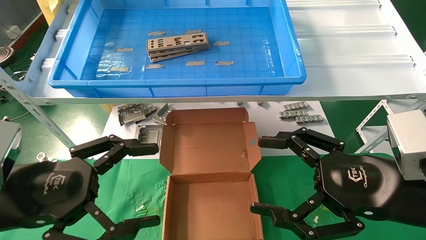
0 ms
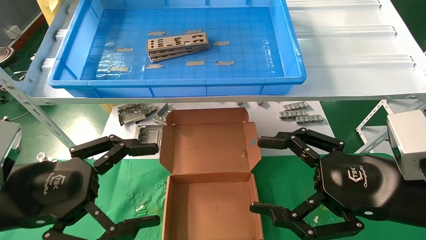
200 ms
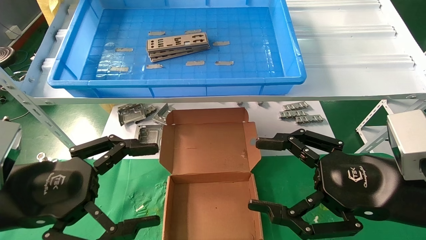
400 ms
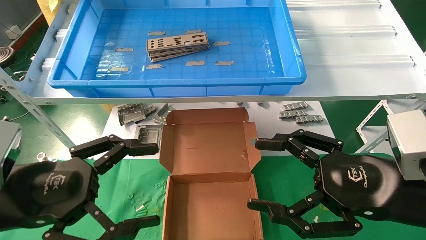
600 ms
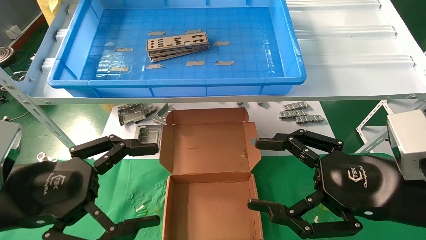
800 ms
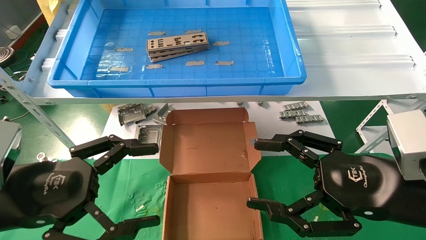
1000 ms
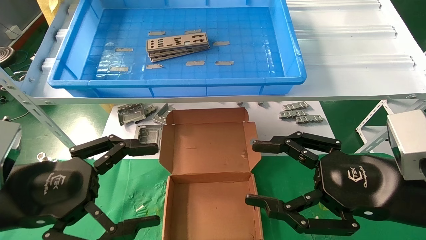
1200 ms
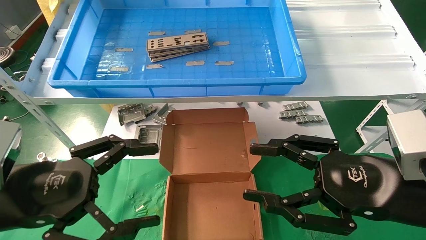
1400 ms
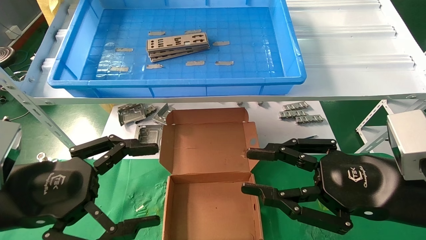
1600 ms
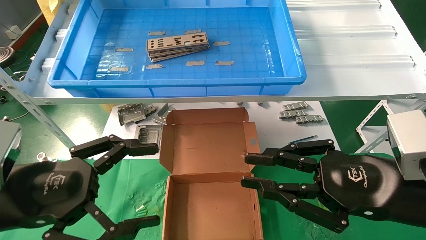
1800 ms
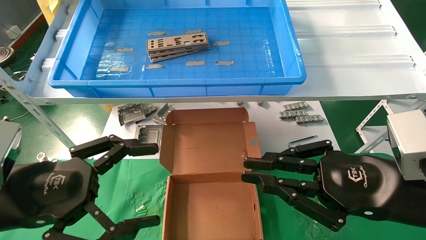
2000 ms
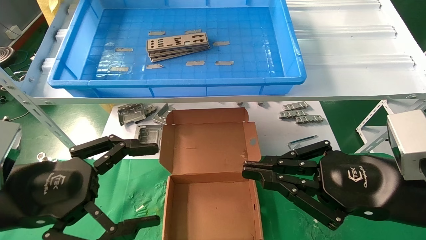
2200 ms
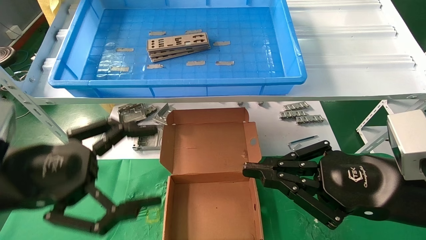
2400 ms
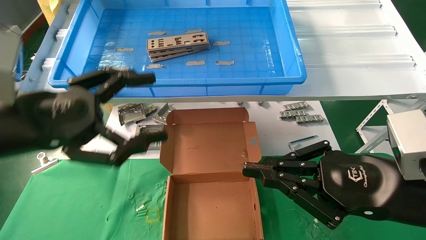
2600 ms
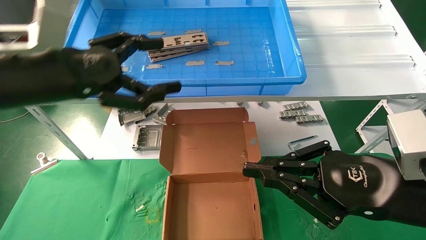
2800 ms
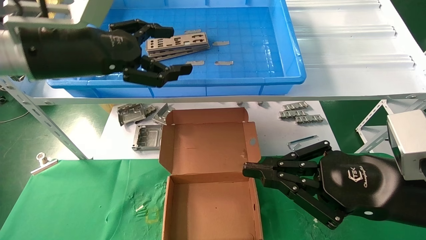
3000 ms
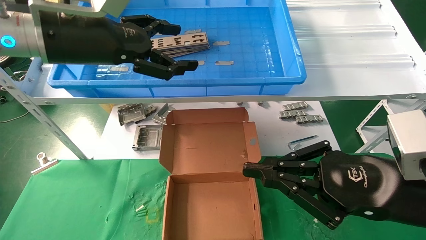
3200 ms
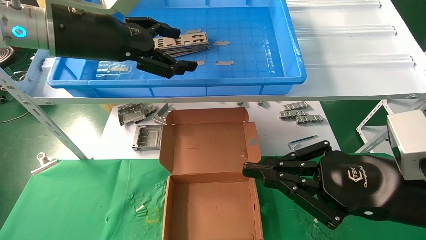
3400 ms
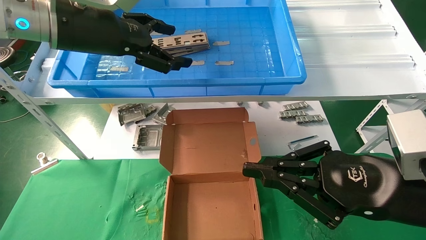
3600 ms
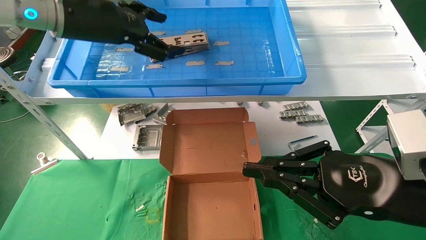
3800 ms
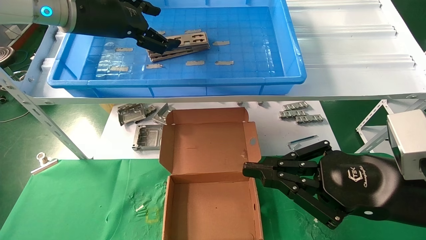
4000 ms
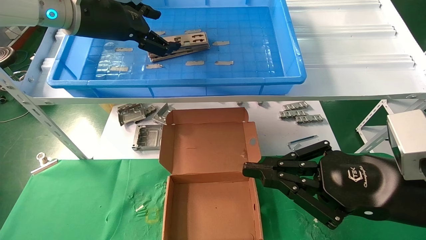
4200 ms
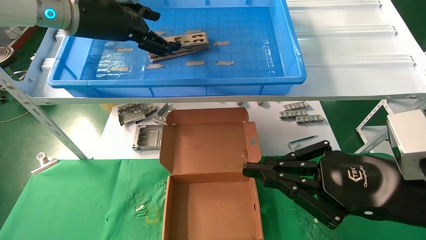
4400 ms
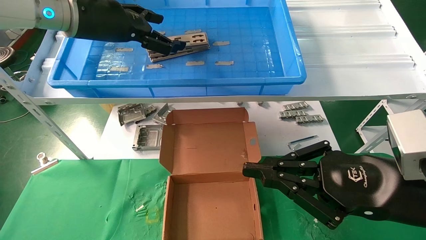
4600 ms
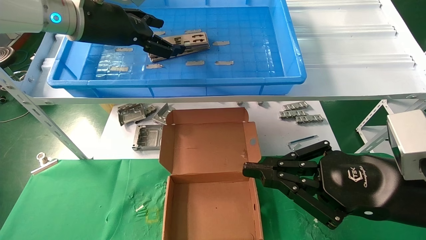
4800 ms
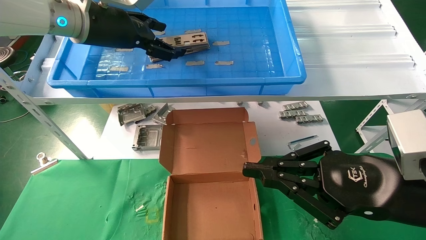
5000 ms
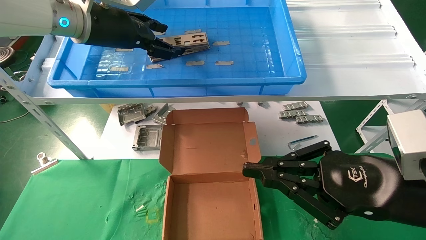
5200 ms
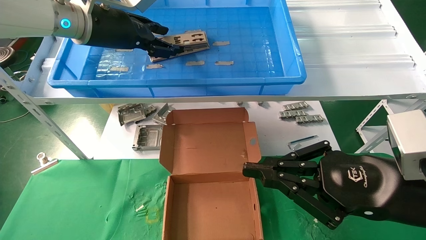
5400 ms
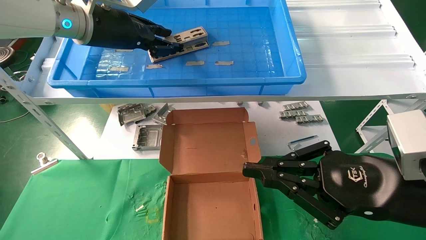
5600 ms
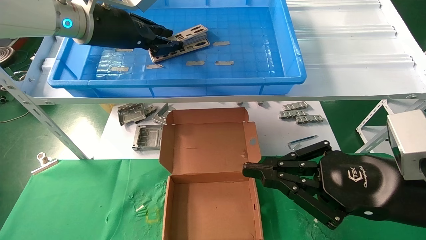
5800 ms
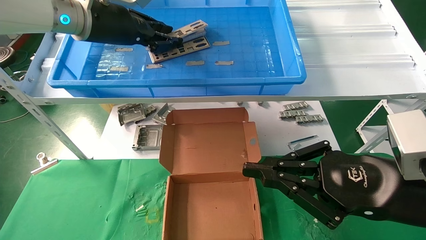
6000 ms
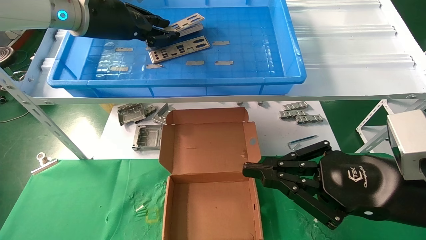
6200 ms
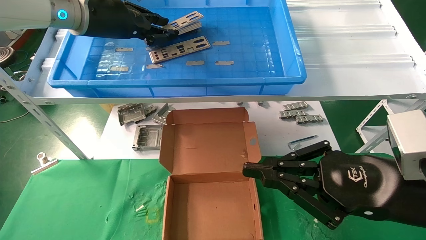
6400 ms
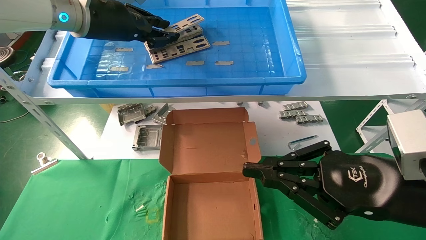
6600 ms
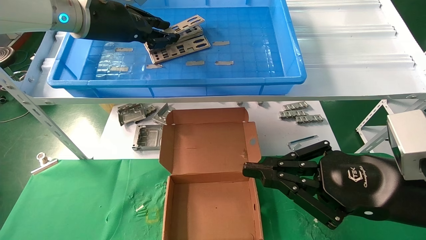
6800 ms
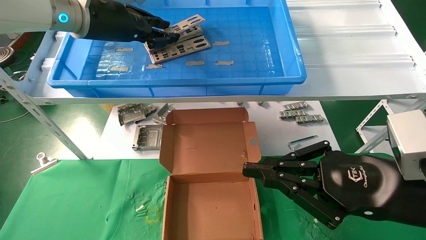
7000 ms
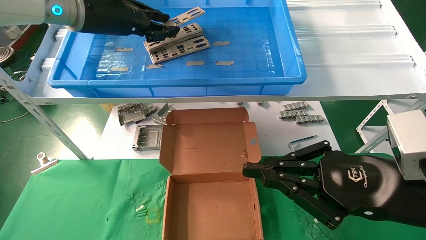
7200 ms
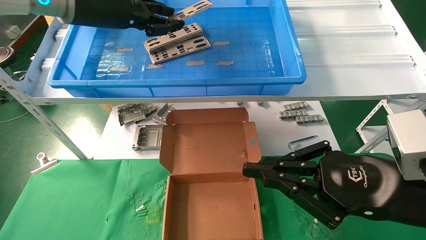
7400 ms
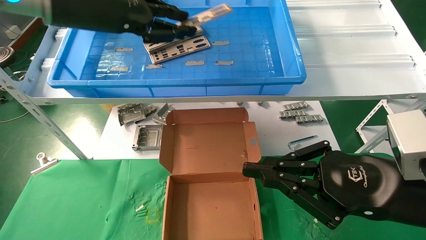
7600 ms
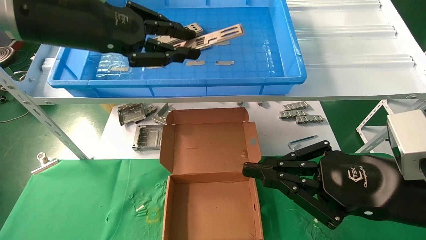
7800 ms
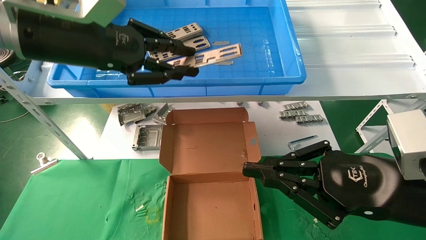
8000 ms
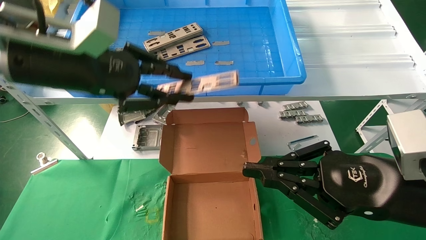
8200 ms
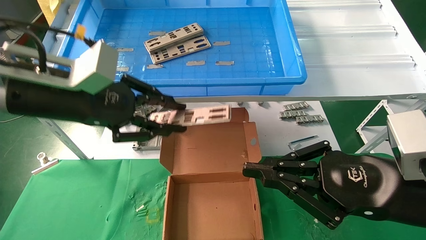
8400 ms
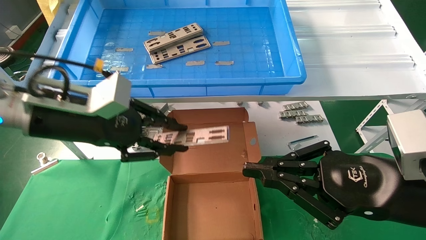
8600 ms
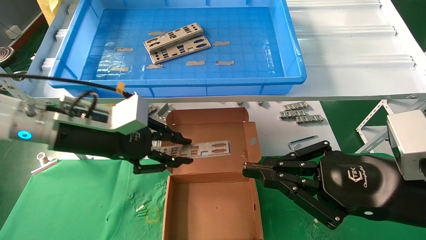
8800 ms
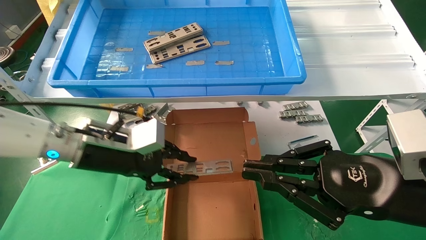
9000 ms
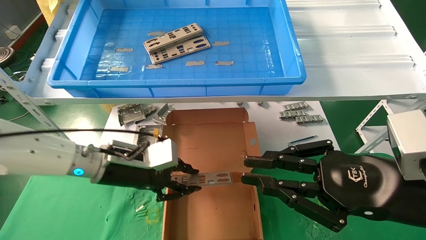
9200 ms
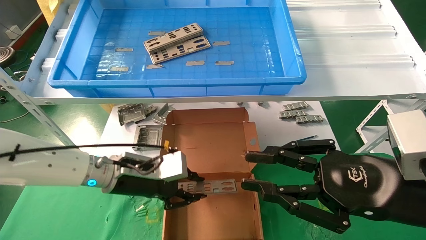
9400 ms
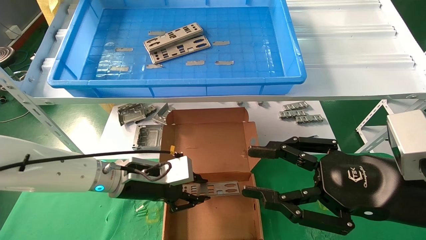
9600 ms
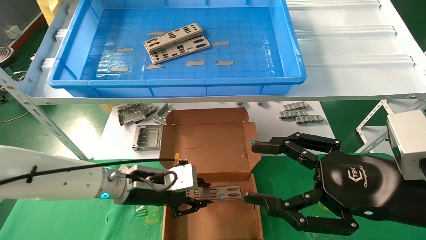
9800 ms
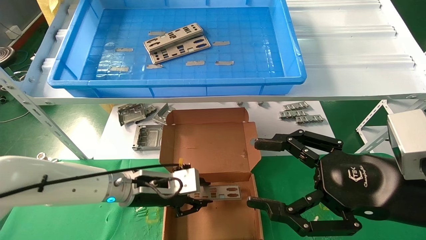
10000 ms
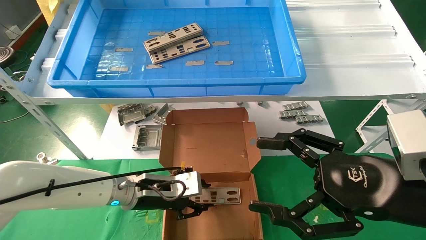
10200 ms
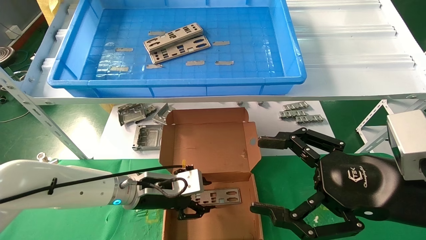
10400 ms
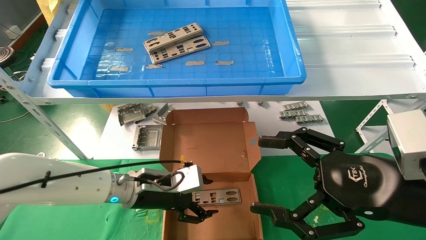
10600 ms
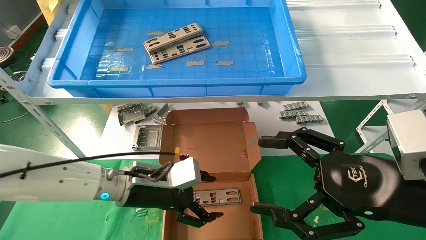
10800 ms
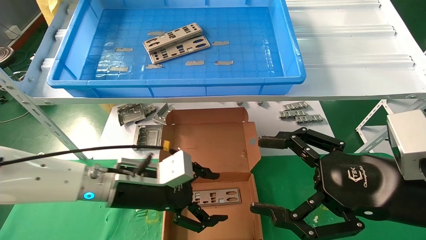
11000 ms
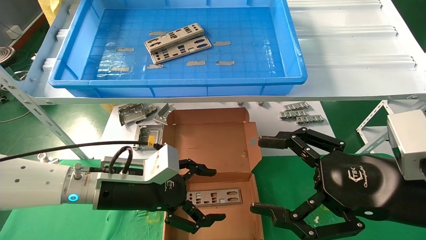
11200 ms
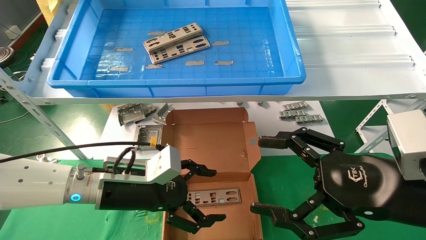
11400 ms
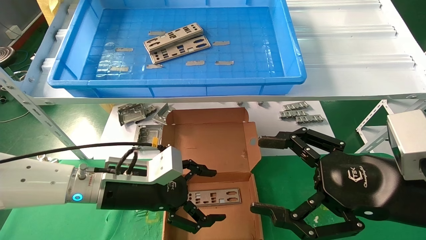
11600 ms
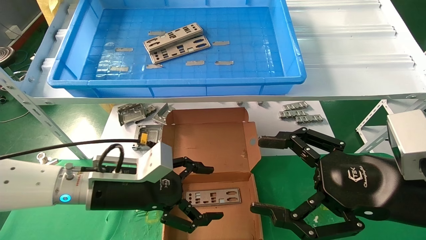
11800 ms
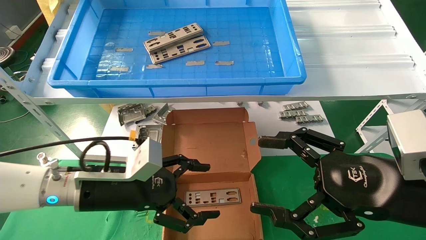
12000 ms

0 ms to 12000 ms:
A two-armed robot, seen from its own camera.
Task of the whole recording: pick up the parts on the tray and put them in the cardboard box.
Step, 2600 ms to 5800 ms: Pick up the IO bracket from the container box.
Step, 6000 ms to 10200 ms: Place the IO bracket into the ingredient slot.
0 ms to 1600 ms: The right gripper closes.
1600 ms to 3000 ms: The left gripper travels upward and forward by some 20 cm. The right gripper closes its fingers.
3000 ms to 4400 ms: The left gripper shifts approximately 10 cm forward and upward.
4400 ms to 6000 ms: The left gripper closes.
6000 ms to 7600 ms: The left gripper heads backward, covering about 5 cm.
7600 ms to 9000 ms: The left gripper shifts some 20 cm downward.
9000 ms to 10400 ms: The left gripper moves downward and to the right, some 15 cm, while the right gripper opens its fingers.
10400 ms to 12000 ms: The left gripper moves backward and upward, about 10 cm, and opens its fingers.

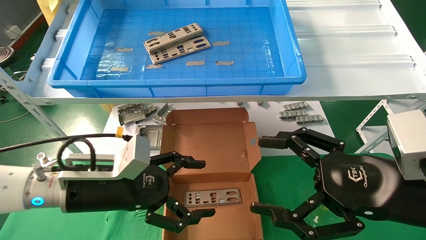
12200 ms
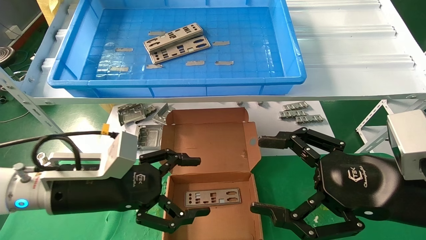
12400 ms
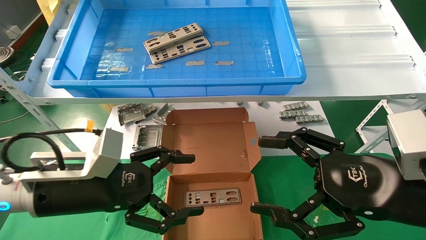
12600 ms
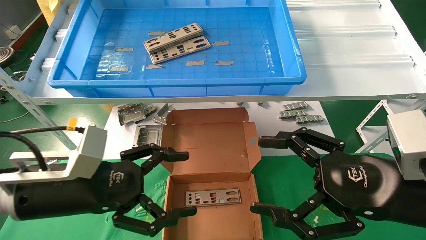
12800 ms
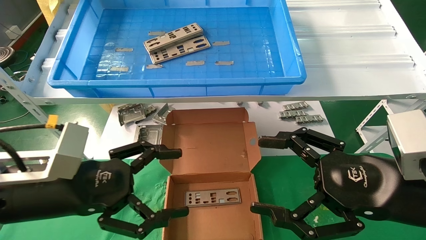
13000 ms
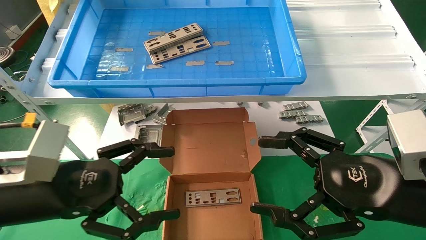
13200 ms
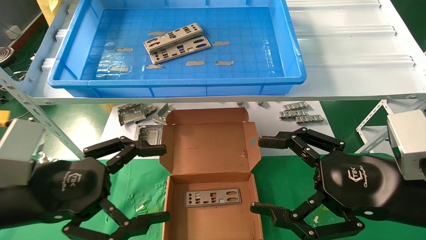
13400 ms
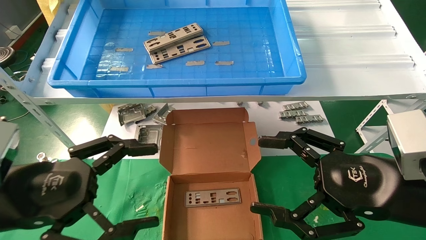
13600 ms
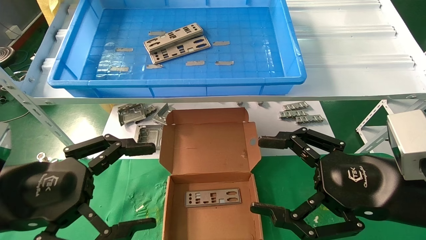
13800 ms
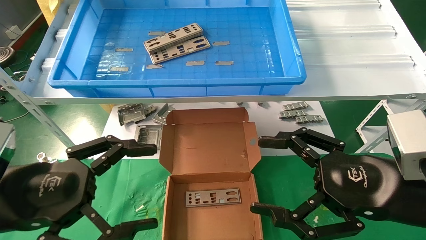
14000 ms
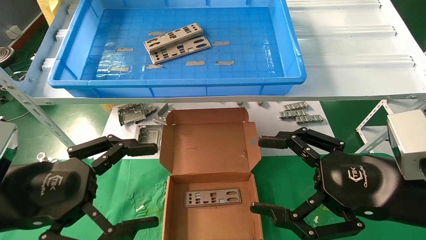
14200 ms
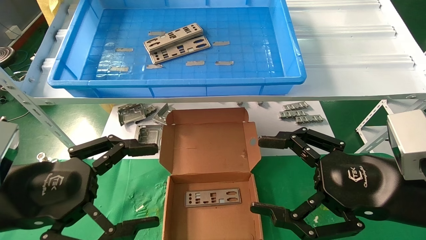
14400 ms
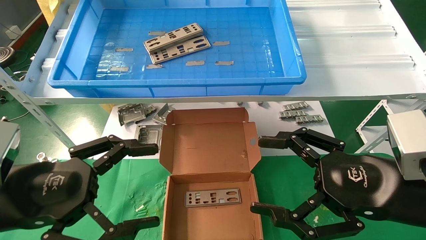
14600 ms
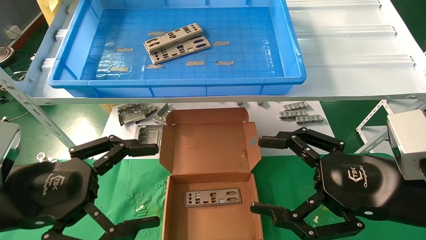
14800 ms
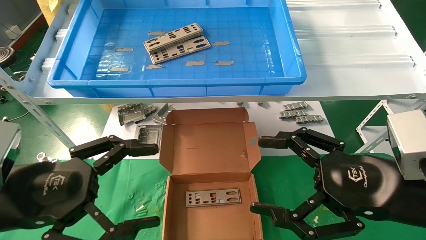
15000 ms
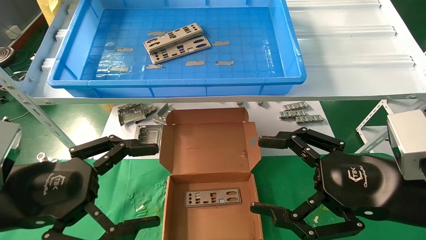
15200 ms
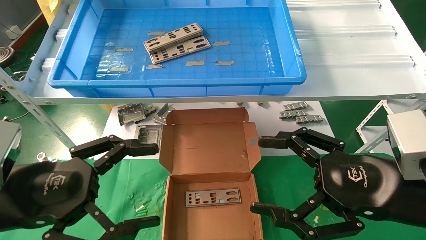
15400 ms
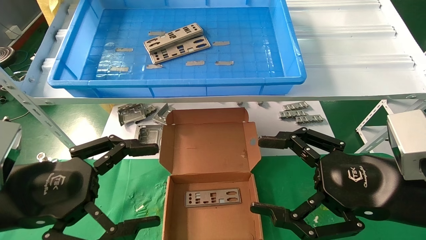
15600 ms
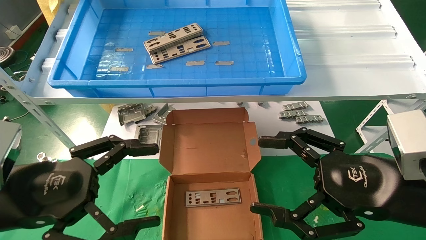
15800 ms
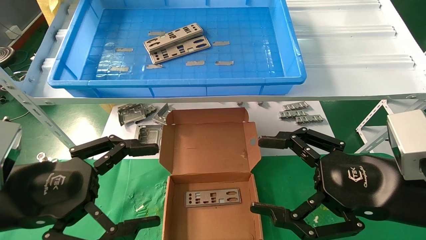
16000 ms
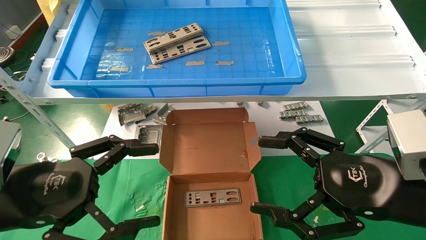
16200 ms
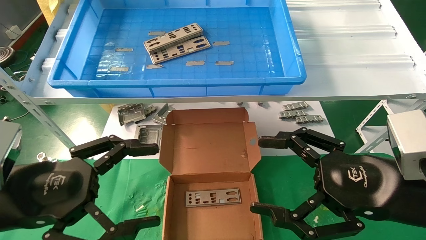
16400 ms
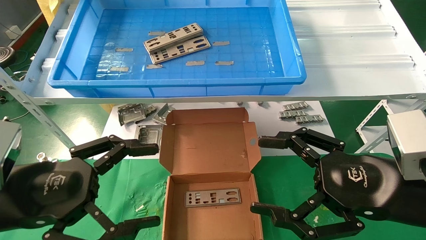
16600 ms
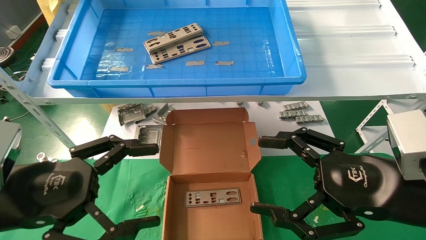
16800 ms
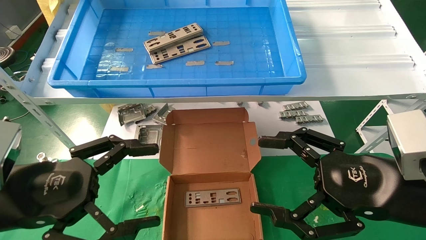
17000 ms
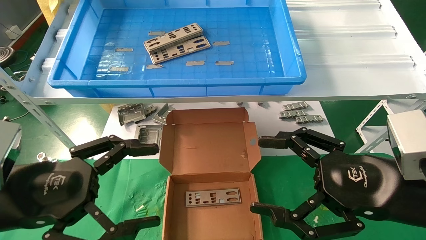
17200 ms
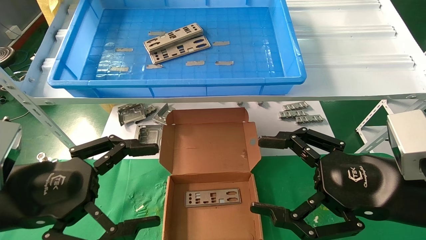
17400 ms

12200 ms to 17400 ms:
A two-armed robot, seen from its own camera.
Task of the whole recording: pick up the parts on the tray and put them in the cardboard box.
12200 ms to 14000 ms: The left gripper travels backward and to the left by approximately 10 cm.
14000 ms to 17400 ms: Both grippers stay about where they are.
